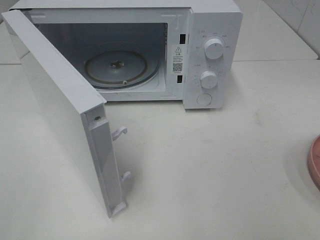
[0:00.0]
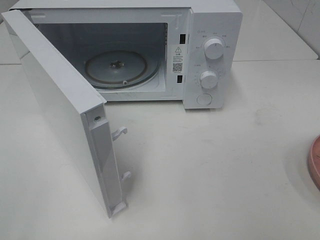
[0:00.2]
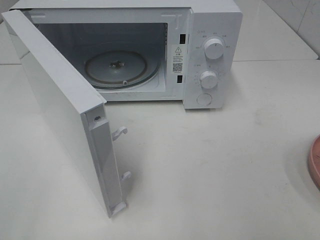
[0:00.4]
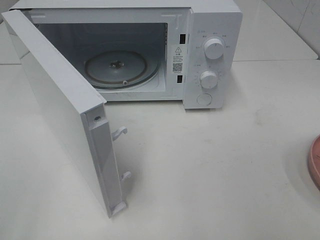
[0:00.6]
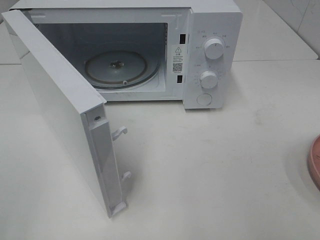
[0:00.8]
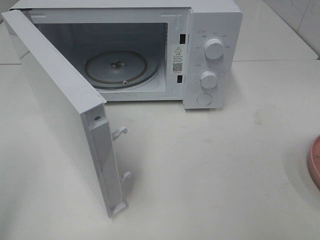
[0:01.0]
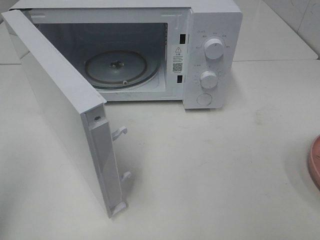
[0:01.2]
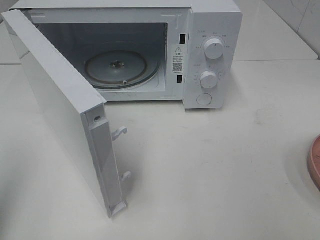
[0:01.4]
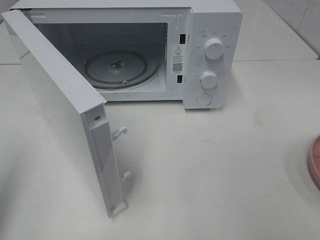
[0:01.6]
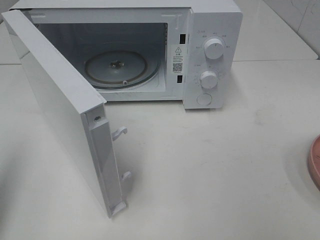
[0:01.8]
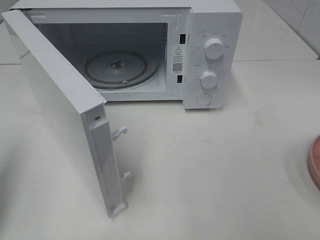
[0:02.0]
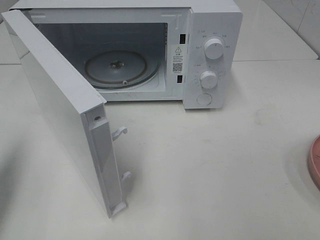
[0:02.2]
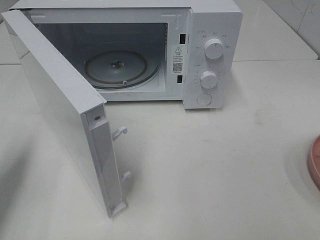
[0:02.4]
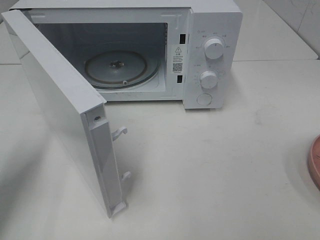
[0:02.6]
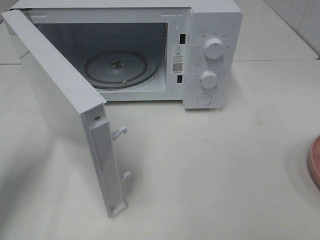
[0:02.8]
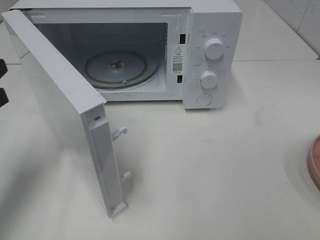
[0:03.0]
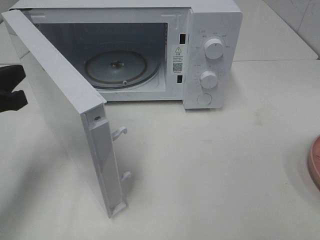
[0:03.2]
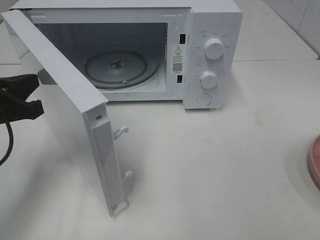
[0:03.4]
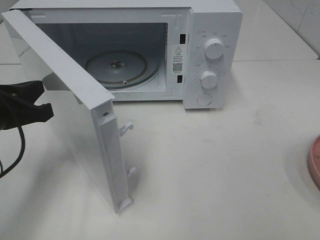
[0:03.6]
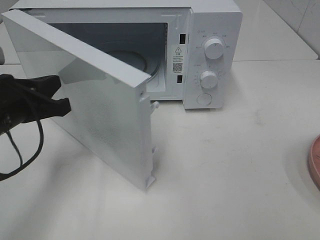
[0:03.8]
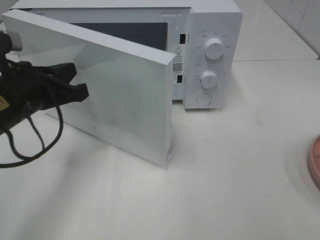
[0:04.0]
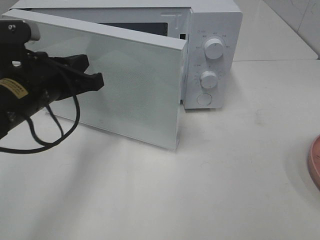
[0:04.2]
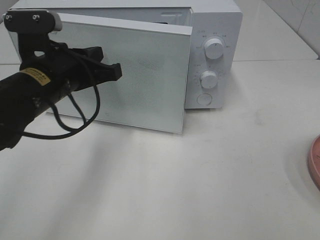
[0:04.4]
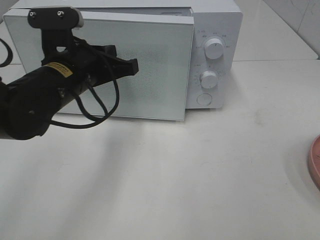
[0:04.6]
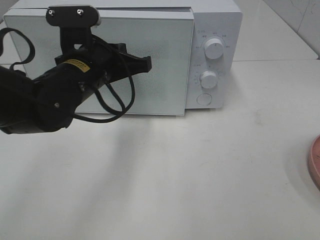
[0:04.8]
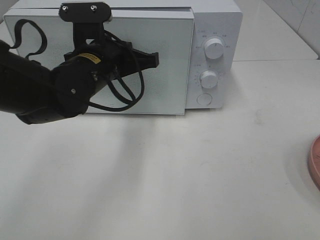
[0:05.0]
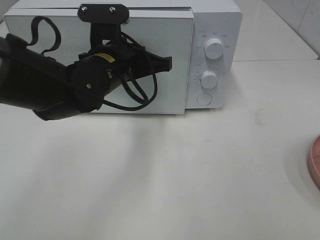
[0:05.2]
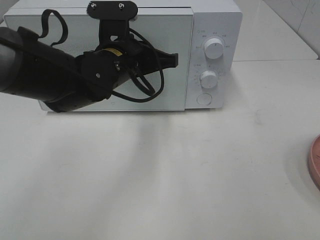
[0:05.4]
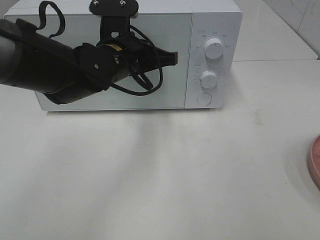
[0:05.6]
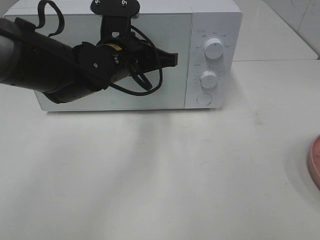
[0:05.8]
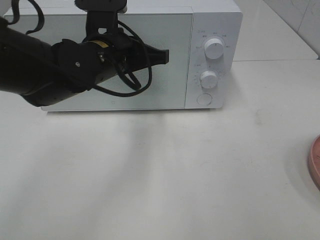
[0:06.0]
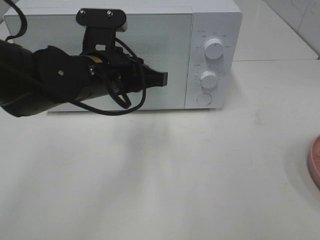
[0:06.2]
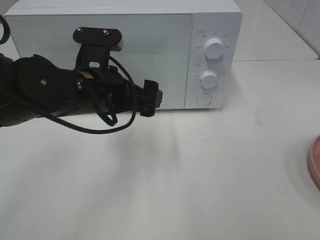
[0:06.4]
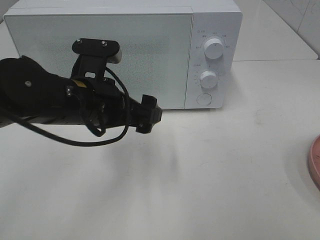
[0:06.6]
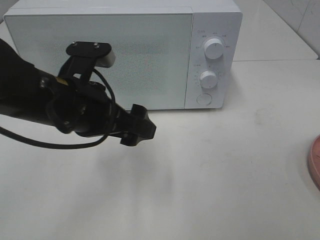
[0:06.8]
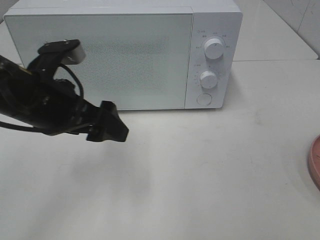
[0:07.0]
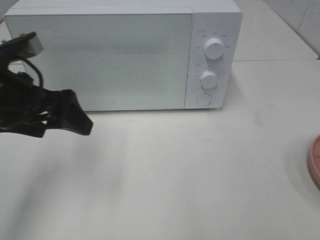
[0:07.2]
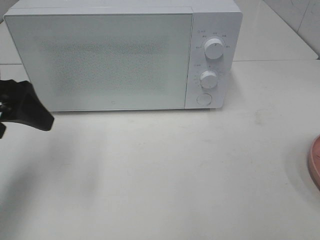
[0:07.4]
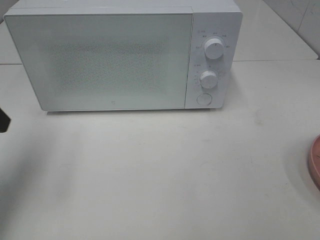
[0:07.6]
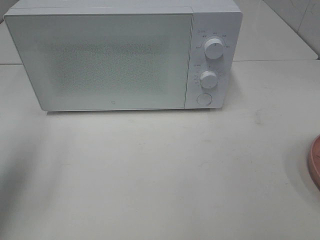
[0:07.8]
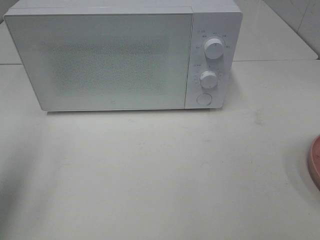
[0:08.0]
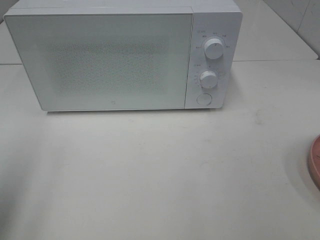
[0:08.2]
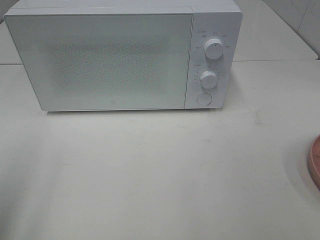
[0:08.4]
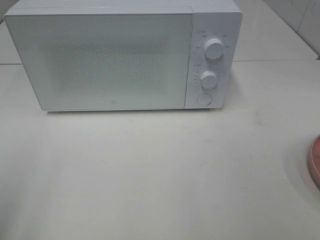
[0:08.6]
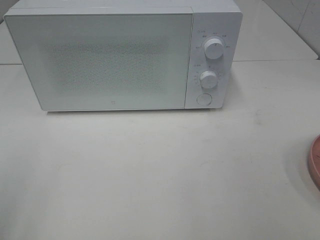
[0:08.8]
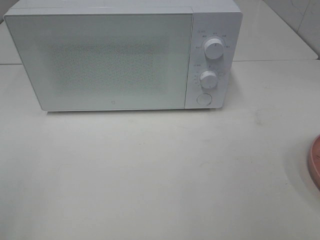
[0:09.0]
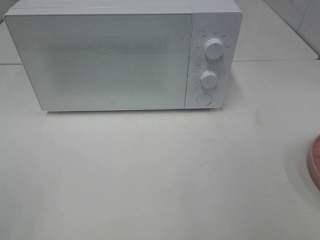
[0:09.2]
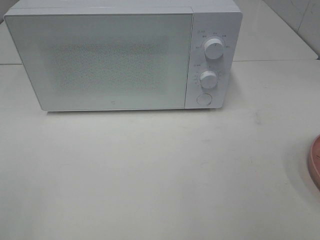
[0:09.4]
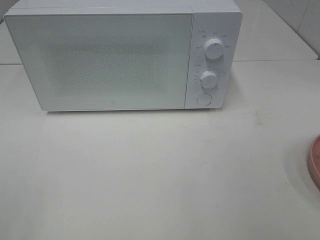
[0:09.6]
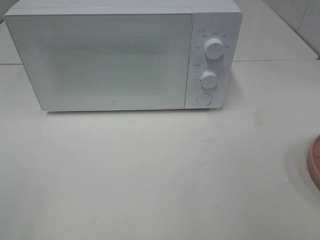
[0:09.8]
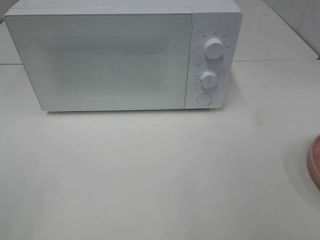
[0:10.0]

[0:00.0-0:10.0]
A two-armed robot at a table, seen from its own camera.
Task of the whole recording: Heat the burger.
Step, 0:00.0 to 0:06.2: Left hand: close the microwave door.
0:00.0 to 0:01.4: The left gripper moves forward, some 10 cm, and closes.
0:01.4 to 0:02.8: The left gripper is displaced forward and downward by roughly 15 cm.
0:02.8 to 0:04.2: The left gripper goes about 15 cm to the right and forward.
0:04.2 to 0:05.8: The left gripper goes some 15 cm to the right and forward.
0:05.8 to 0:07.2: The left gripper goes some 20 cm to the left and backward, and opens its fingers.
0:07.2 to 0:08.6: The left gripper shifts about 20 cm backward and to the left.

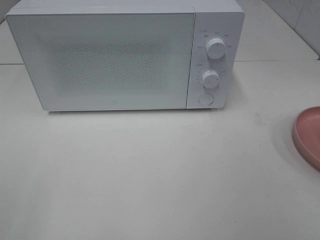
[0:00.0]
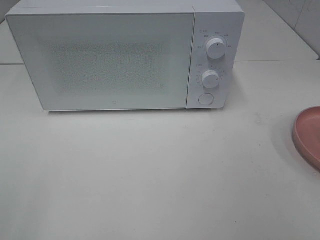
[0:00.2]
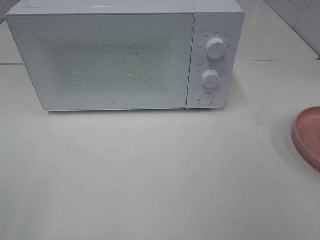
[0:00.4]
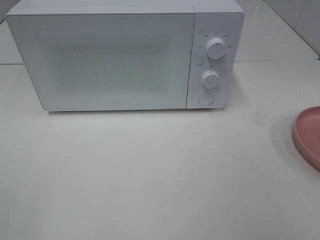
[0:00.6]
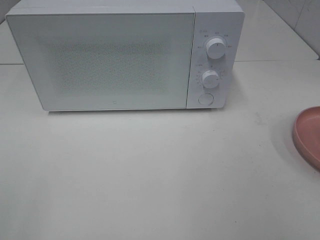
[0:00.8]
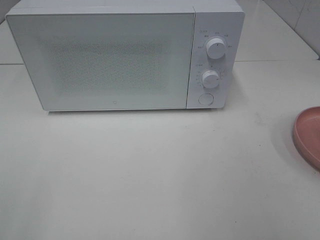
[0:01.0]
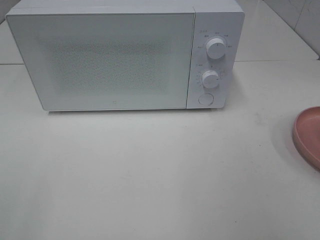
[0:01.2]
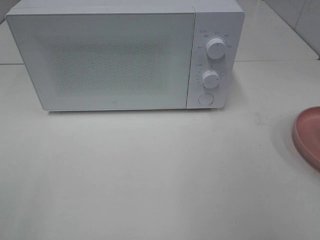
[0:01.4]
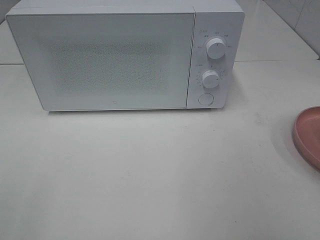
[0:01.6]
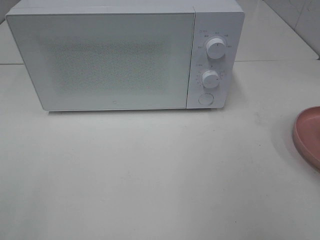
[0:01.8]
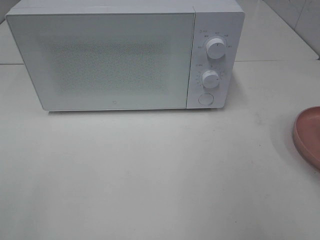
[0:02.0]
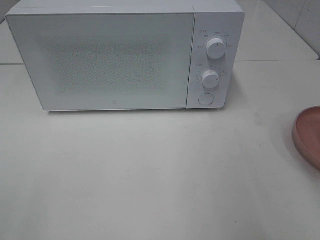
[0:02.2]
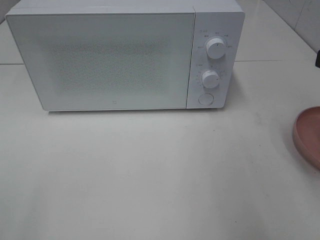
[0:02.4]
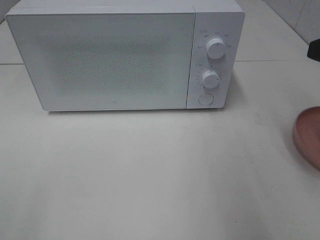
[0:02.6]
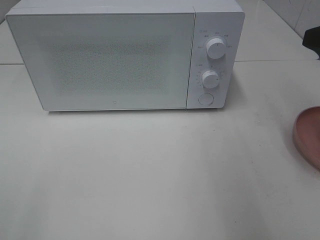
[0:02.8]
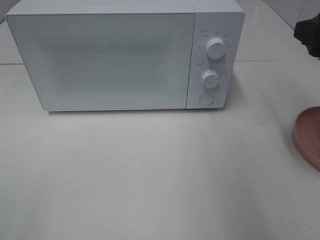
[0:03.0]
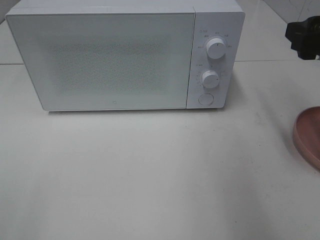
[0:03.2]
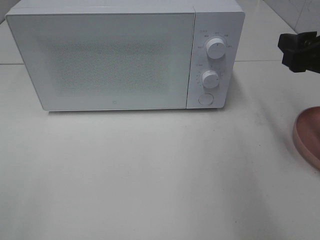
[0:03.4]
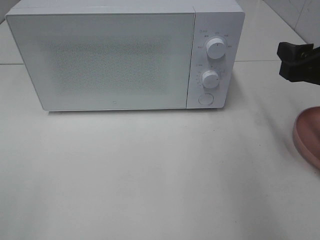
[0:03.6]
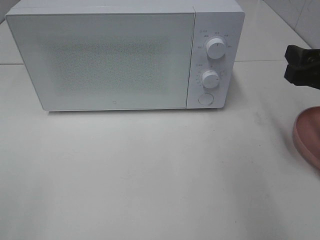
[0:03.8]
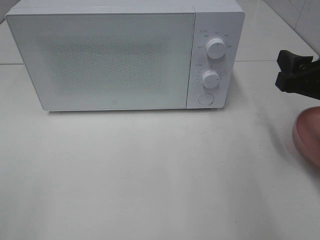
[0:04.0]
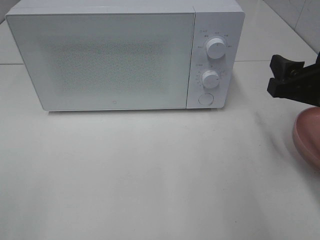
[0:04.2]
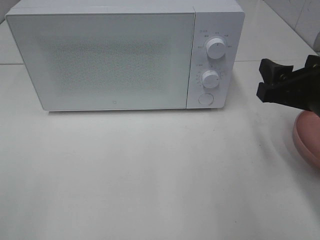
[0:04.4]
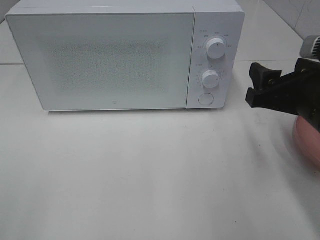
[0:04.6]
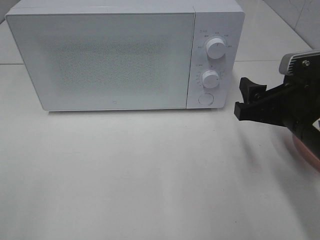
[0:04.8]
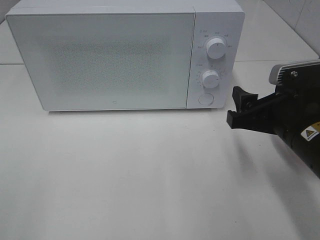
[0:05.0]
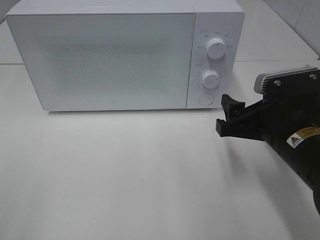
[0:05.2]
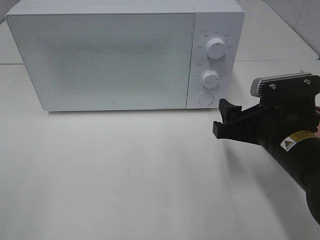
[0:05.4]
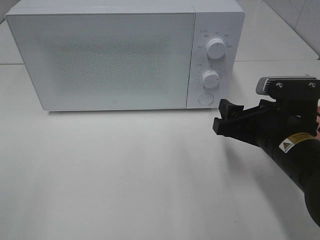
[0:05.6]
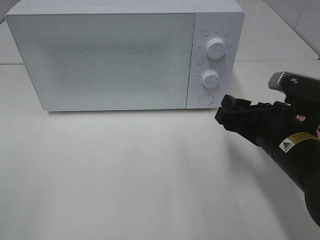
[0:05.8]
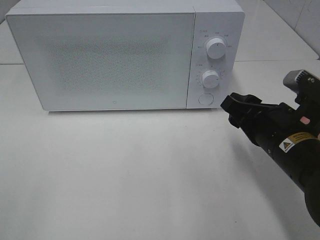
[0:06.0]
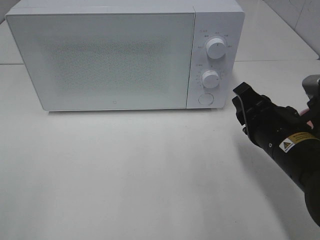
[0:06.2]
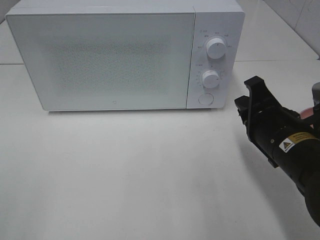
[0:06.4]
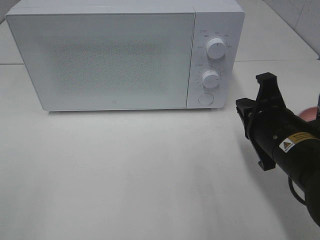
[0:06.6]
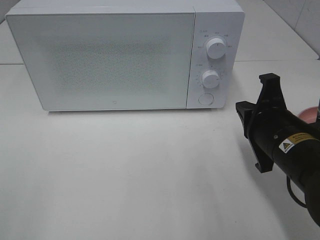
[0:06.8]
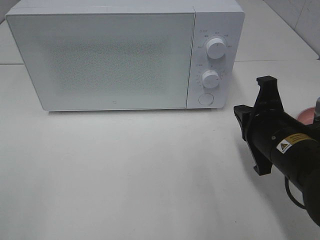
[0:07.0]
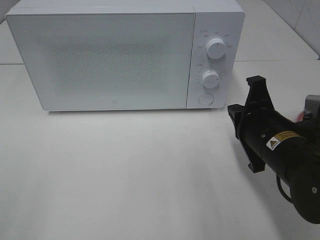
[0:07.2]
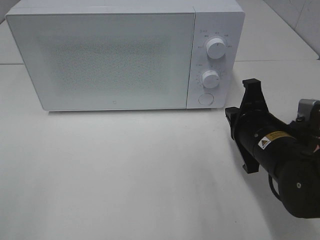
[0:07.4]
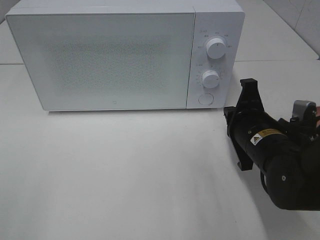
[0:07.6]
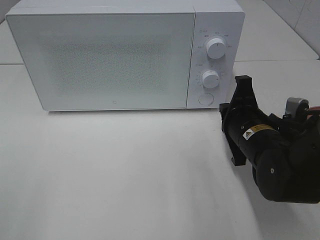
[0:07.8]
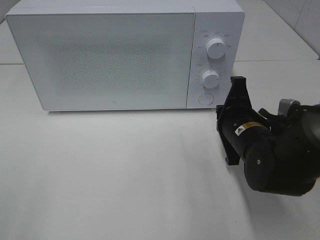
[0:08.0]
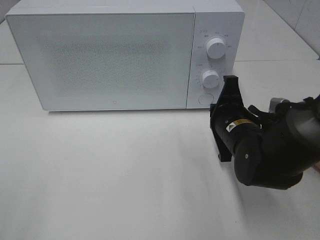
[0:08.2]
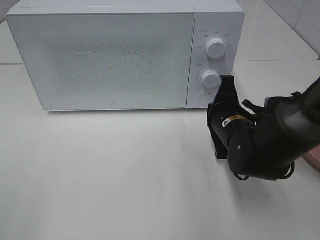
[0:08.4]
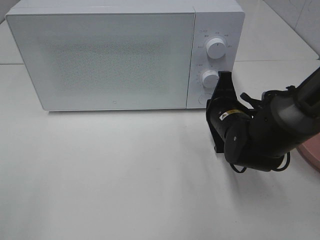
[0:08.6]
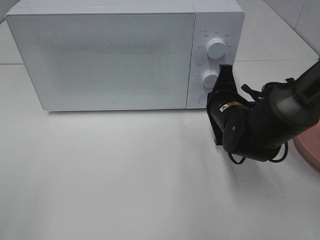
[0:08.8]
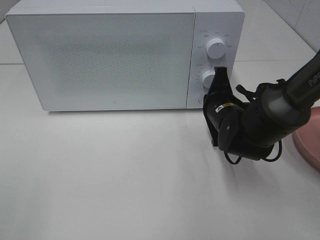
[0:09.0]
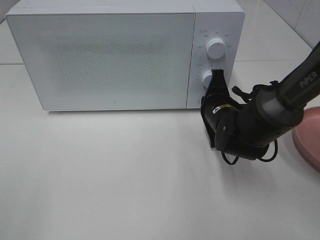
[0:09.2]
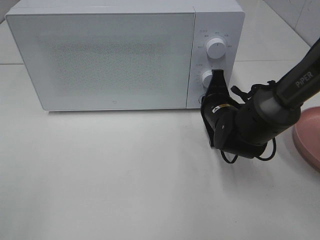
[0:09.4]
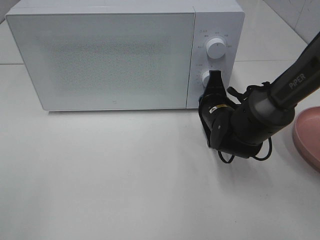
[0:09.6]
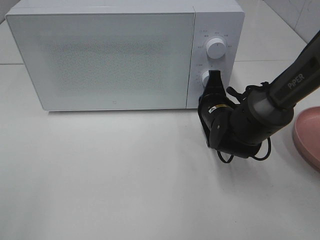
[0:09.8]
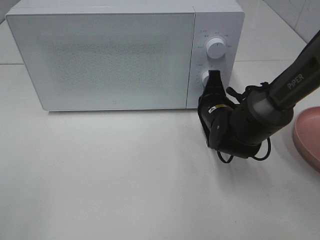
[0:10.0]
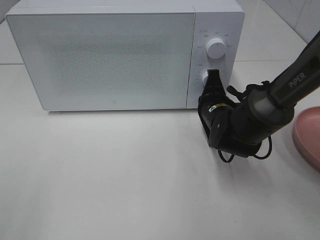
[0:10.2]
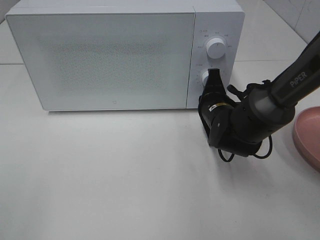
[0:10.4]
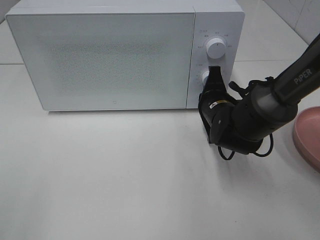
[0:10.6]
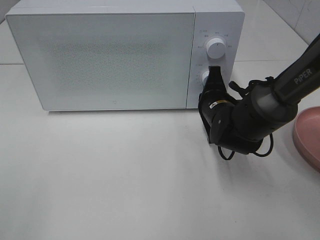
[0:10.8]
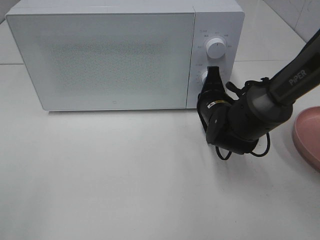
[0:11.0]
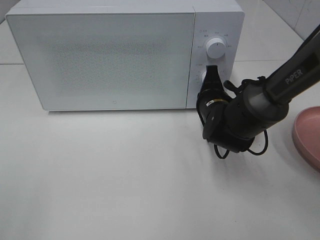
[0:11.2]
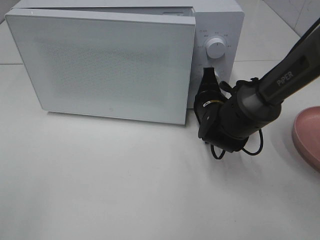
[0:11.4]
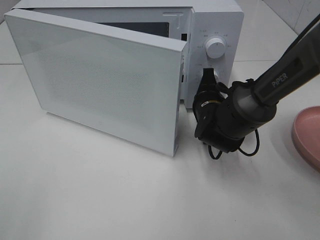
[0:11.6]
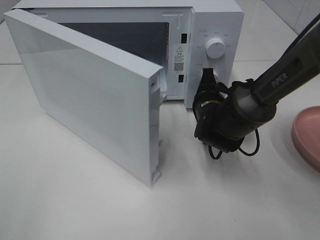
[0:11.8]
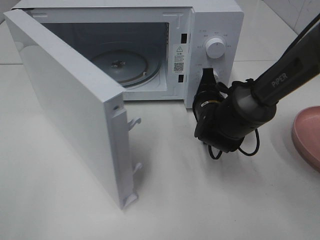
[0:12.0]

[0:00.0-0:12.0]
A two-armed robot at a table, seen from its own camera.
Task of the whole recording: Heat the burger.
0:01.6 to 0:03.0: The right gripper goes about 15 cm forward.
0:03.0 to 0:04.4: The right gripper heads downward, covering about 5 cm.
0:04.4 to 0:06.0: The right gripper is displaced downward by roughly 5 cm.
0:06.0 to 0:07.6: The right gripper closes up.
0:07.6 to 0:09.0: The right gripper shifts approximately 10 cm forward.
0:09.0 to 0:10.4: The grippers move only a little.
